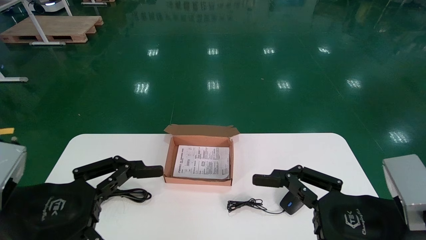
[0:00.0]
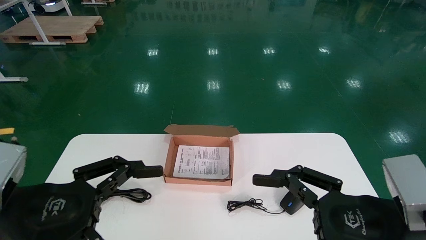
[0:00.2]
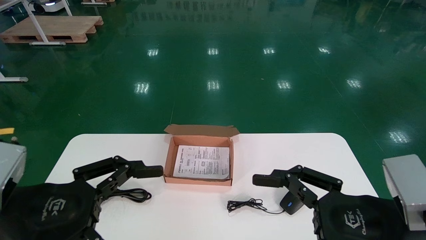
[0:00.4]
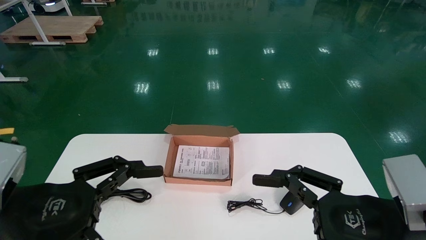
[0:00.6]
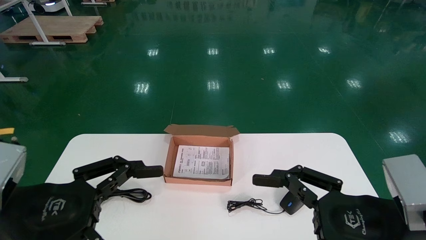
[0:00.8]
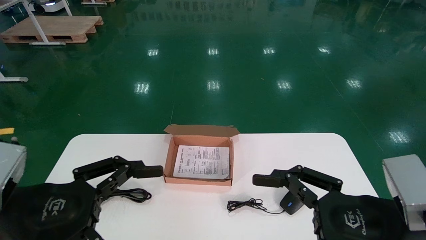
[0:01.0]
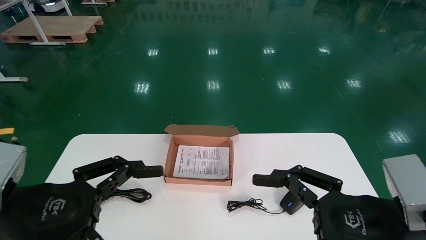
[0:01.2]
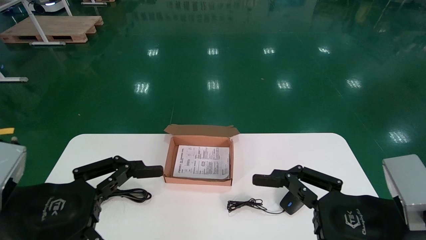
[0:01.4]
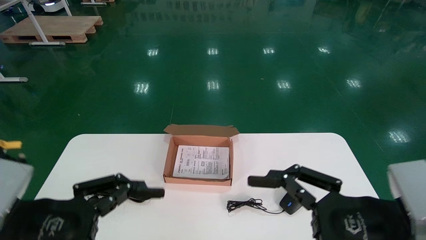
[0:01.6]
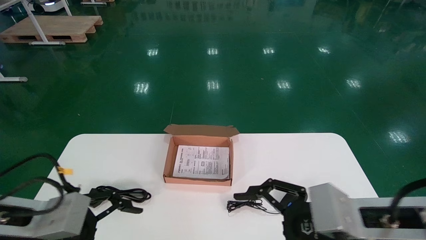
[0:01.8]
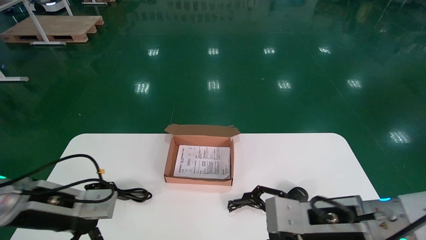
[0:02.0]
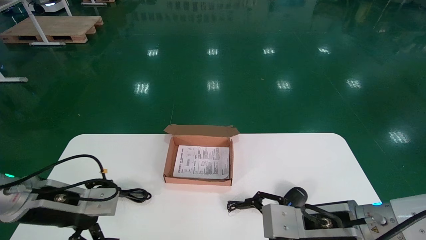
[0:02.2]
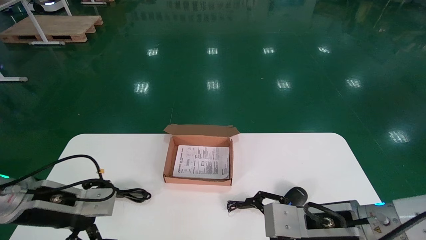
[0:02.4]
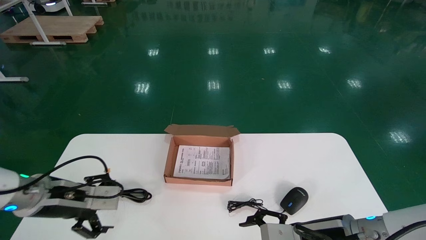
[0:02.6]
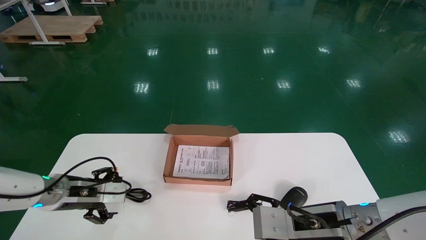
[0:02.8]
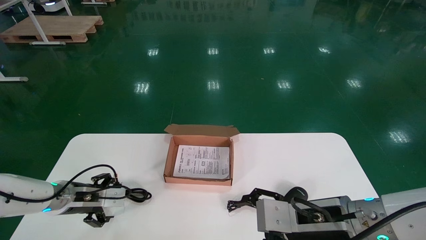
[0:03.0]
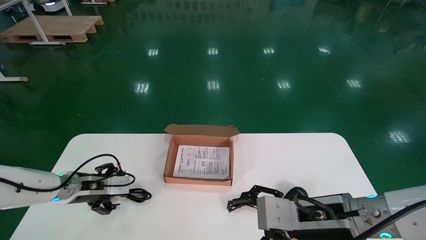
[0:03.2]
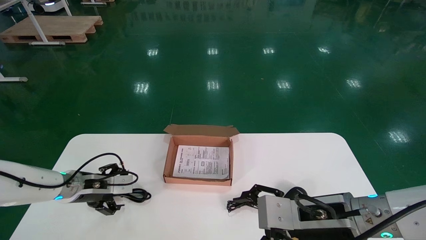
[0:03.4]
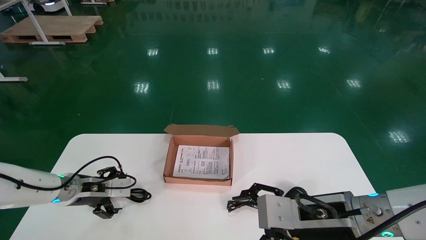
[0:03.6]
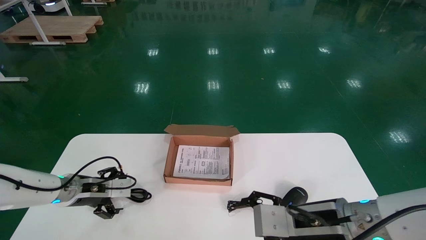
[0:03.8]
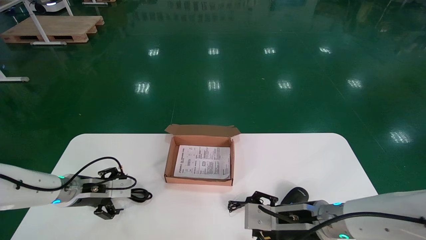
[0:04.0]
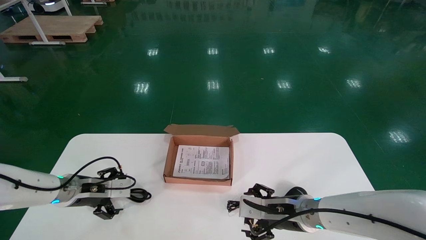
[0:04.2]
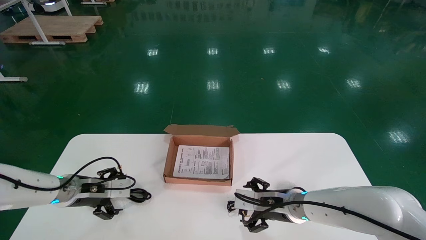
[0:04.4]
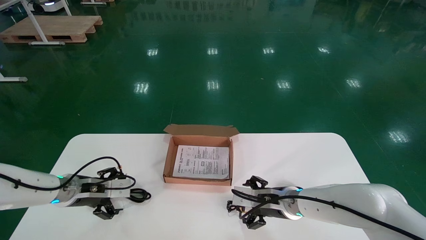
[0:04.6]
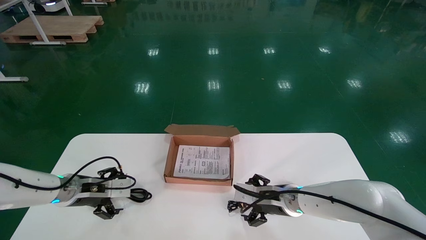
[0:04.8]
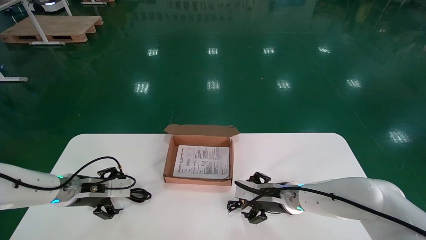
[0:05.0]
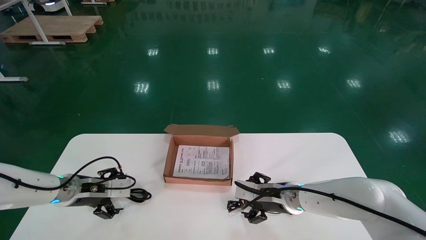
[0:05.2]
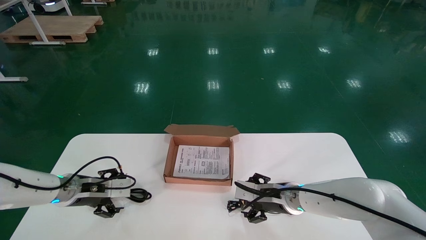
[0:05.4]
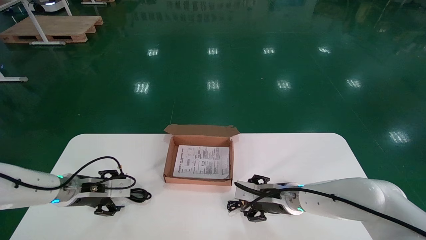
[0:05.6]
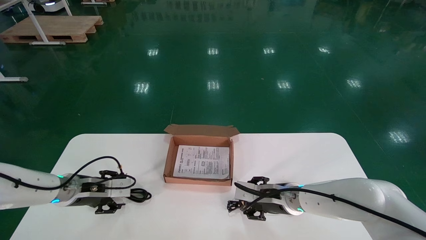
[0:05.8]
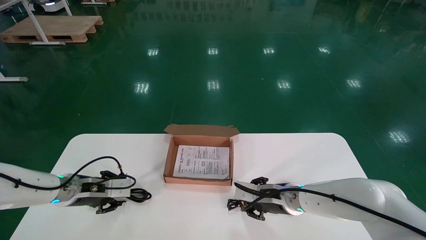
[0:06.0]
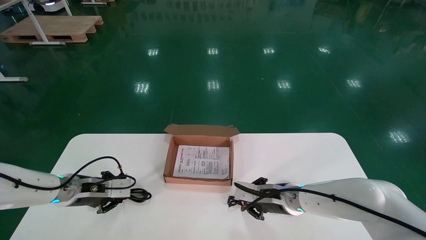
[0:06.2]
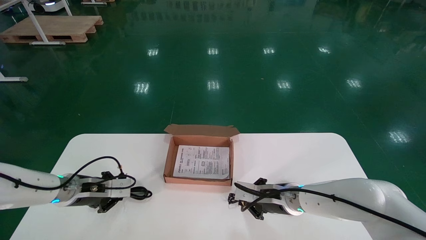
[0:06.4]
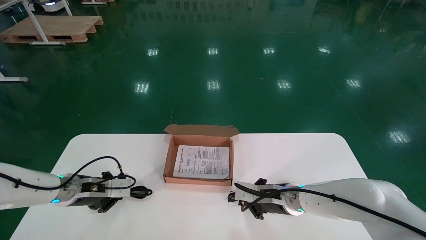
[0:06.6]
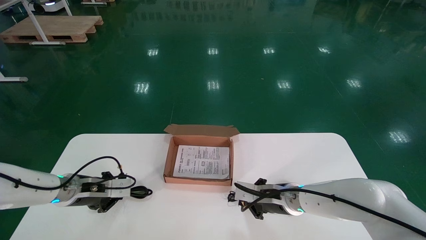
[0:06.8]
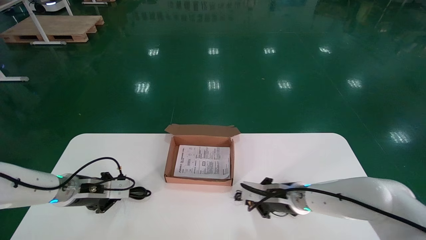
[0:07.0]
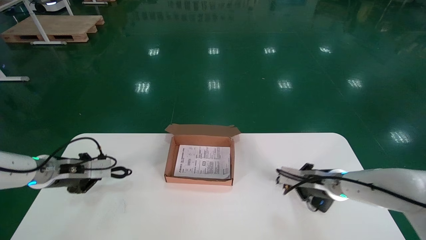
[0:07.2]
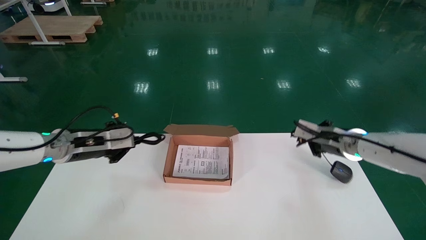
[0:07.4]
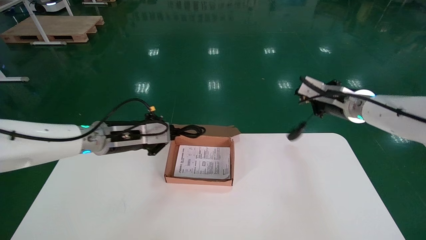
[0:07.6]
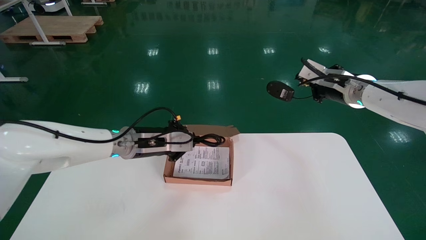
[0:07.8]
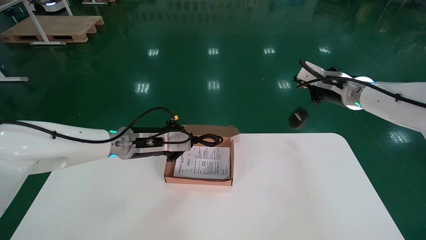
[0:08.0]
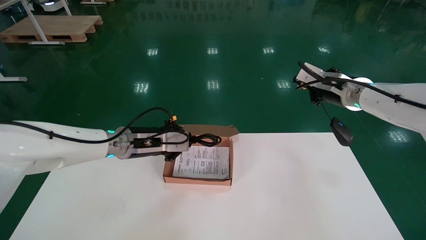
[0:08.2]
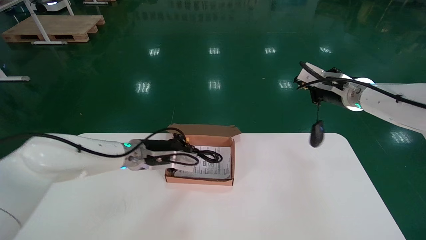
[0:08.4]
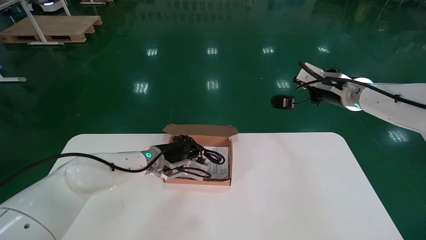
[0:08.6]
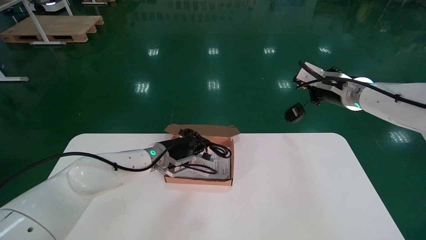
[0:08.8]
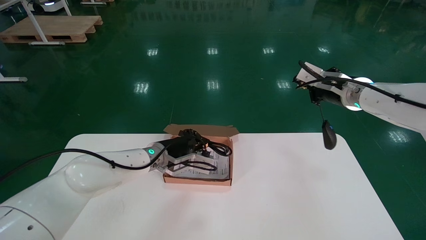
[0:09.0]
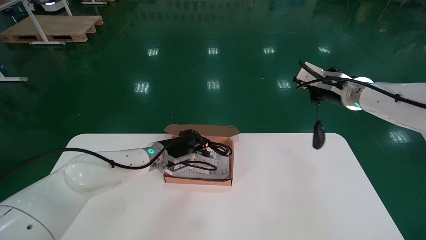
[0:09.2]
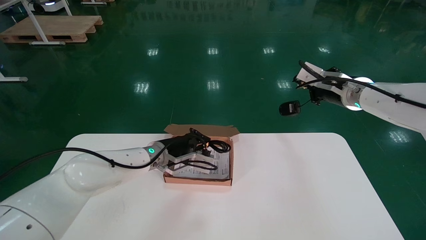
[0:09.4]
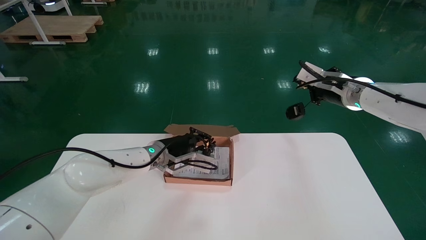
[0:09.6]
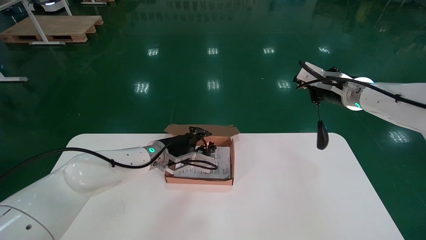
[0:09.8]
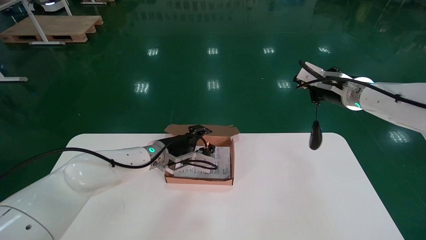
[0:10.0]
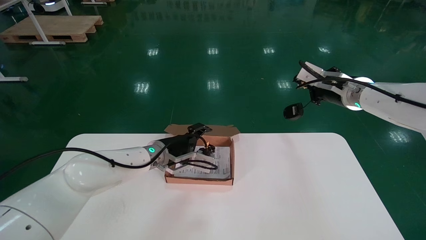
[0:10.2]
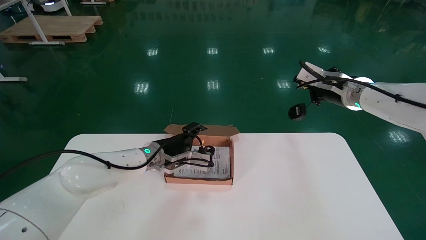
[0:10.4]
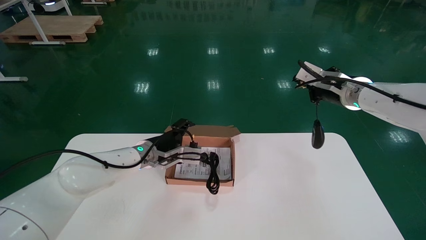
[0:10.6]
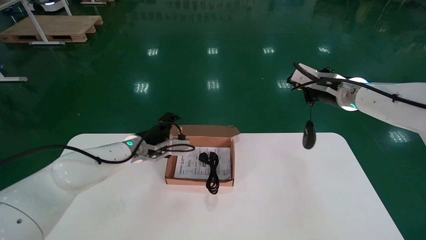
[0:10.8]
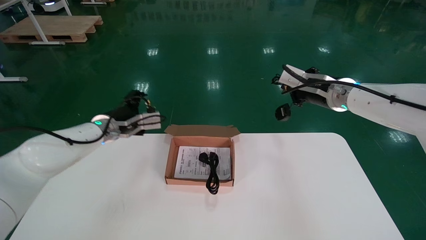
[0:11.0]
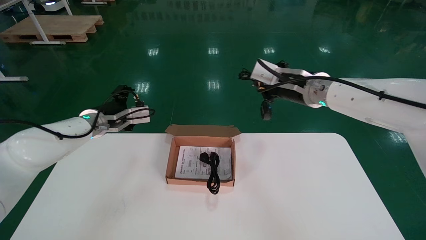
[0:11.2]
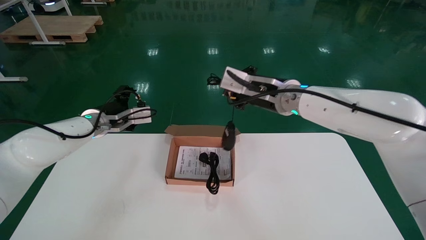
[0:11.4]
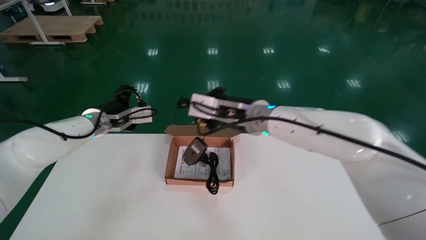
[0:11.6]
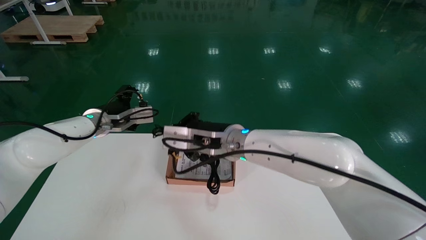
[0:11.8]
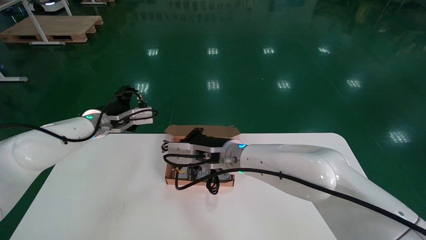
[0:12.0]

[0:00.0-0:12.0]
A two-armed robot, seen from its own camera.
Step, 0:01.8 to 0:06.6: Simultaneously pick up the mouse and power cord from the accessory packaging area.
0:01.6 to 0:03.0: The left gripper heads forward, covering approximately 20 cm. The right gripper is displaced forward by about 10 cm.
0:03.0 to 0:04.4: The right gripper is displaced forward and downward by roughly 15 cm.
0:04.4 to 0:06.0: The right gripper closes. The left gripper closes its fingers.
0:06.0 to 0:07.6: The right gripper is displaced upward and to the right by about 25 cm, and closes, while the left gripper heads upward and to the right, covering some 15 cm, and closes up.
0:07.6 to 0:09.0: The left gripper heads to the right, covering roughly 10 cm.
0:09.0 to 0:10.4: The left gripper opens.
0:10.4 to 0:12.0: The right gripper goes approximately 30 cm to the left and downward; the left gripper shifts roughly 15 cm to the left and upward.

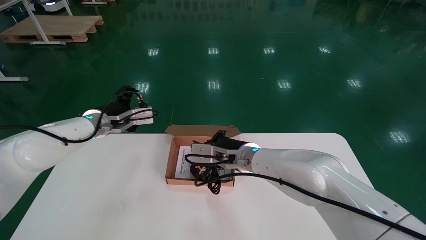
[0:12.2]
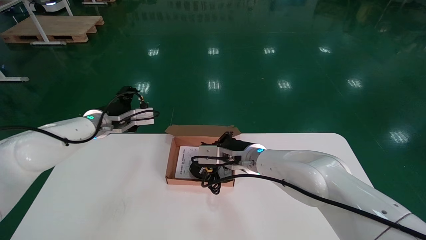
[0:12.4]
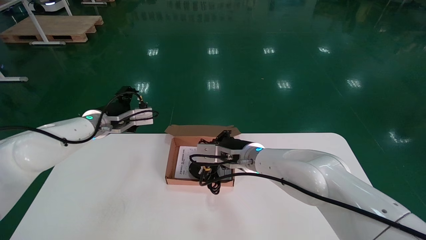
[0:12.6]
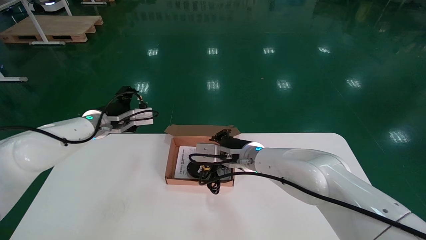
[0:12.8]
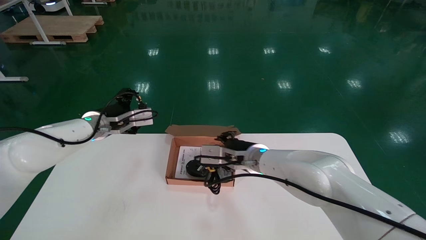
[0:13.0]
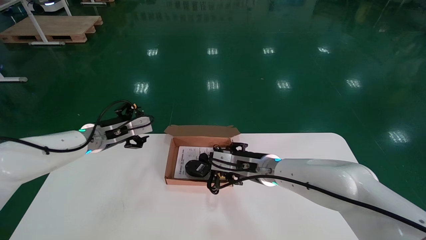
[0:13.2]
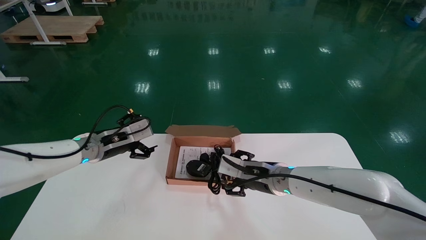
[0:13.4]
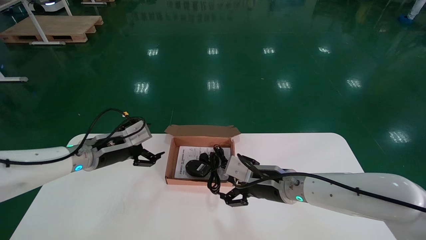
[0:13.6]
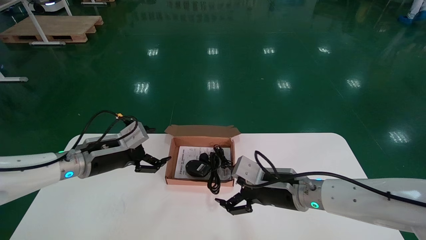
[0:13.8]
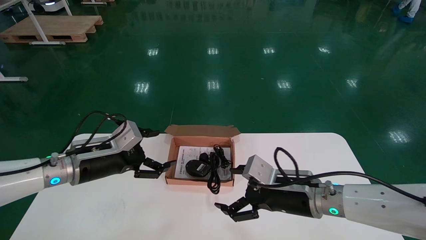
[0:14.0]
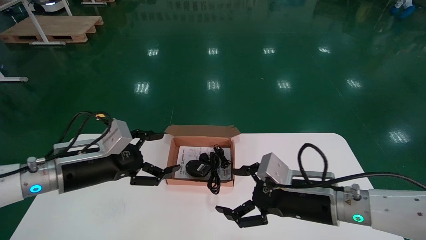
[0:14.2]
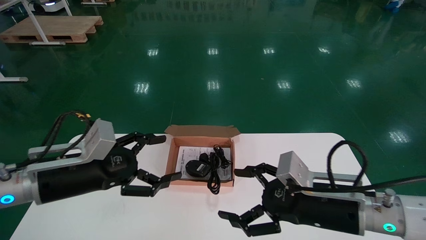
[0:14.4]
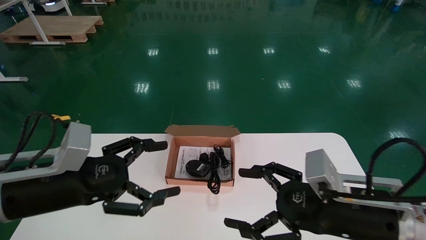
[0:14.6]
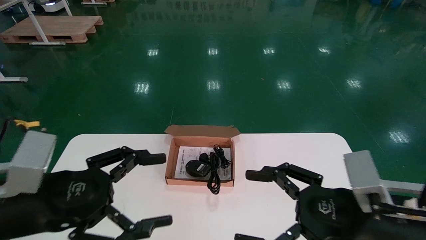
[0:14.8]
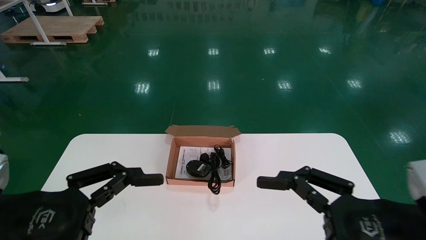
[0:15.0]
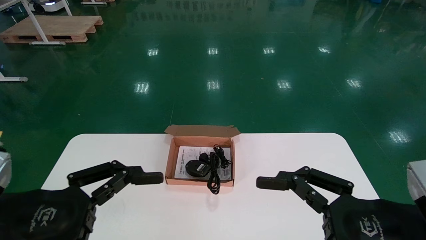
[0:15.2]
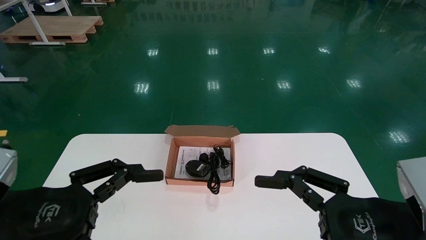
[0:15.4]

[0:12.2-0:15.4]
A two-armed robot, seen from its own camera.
0:12.2 to 0:13.8: The right gripper is displaced to the right and backward by approximately 10 cm, and opens its fingers. Meanwhile the left gripper is displaced backward and downward by roughly 10 cm.
0:13.8 to 0:15.4: The right gripper heads backward and to the right, covering approximately 25 cm. Meanwhile the left gripper moves backward, about 25 cm.
